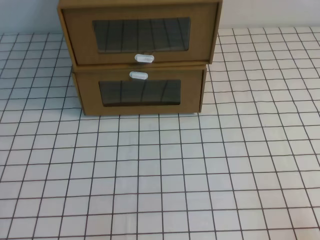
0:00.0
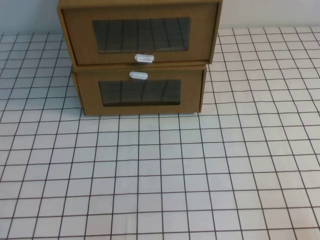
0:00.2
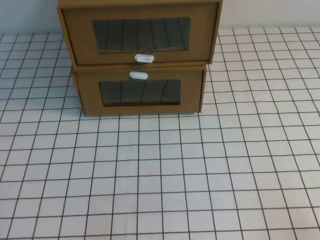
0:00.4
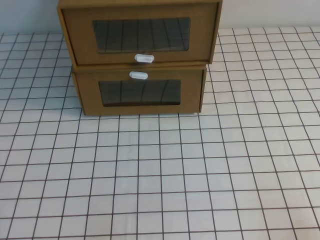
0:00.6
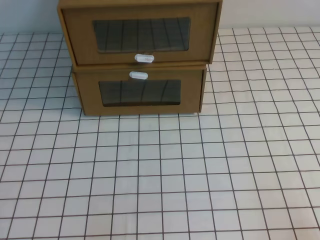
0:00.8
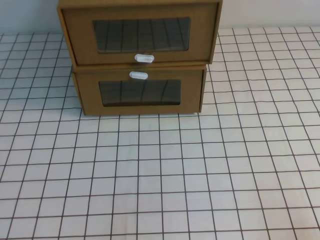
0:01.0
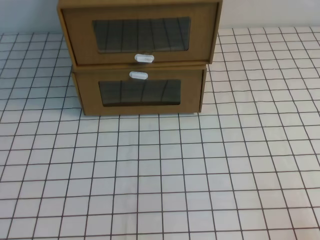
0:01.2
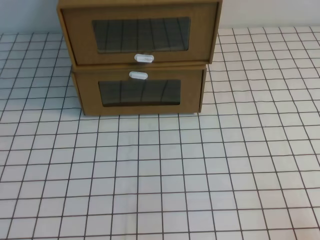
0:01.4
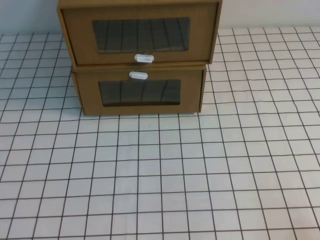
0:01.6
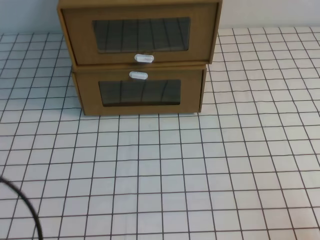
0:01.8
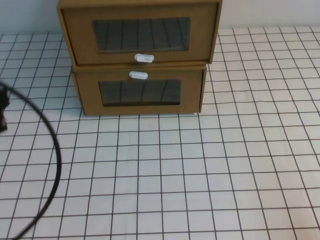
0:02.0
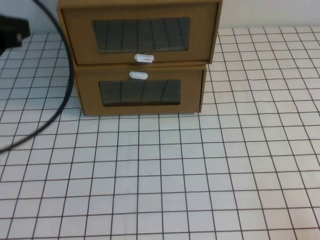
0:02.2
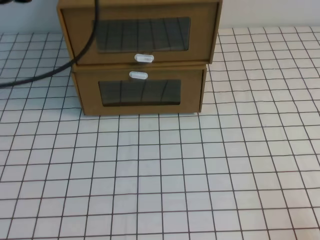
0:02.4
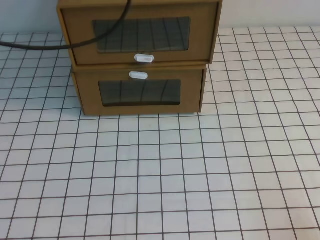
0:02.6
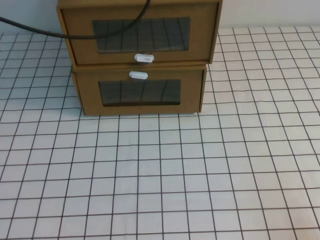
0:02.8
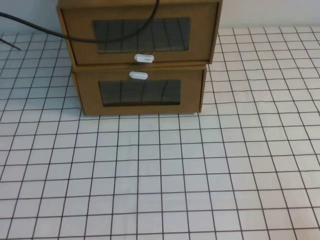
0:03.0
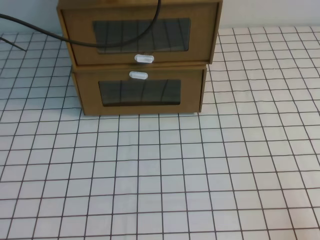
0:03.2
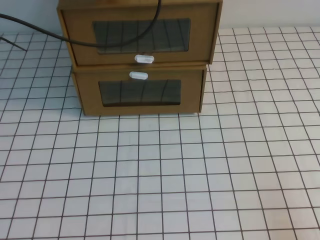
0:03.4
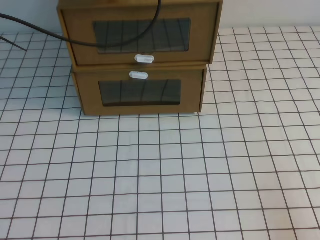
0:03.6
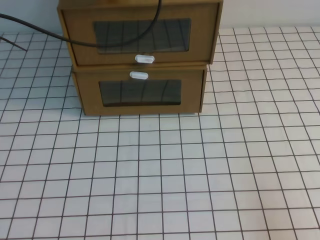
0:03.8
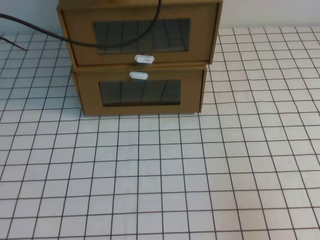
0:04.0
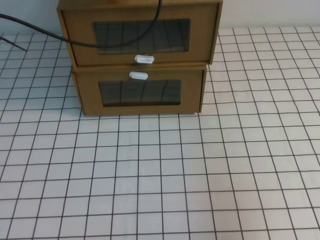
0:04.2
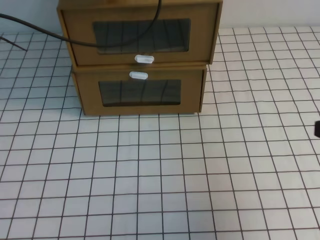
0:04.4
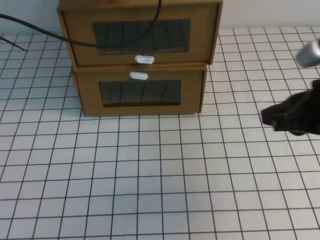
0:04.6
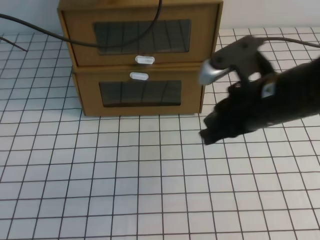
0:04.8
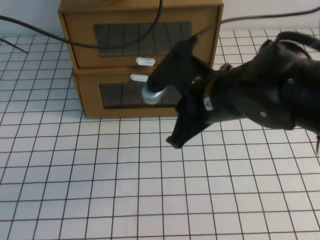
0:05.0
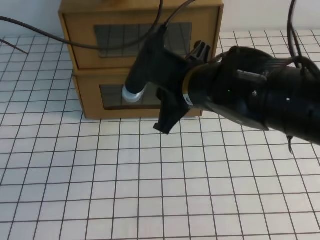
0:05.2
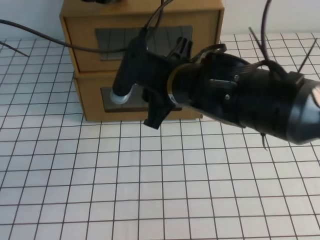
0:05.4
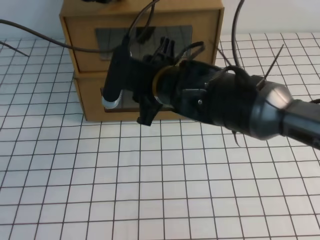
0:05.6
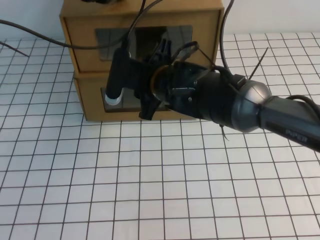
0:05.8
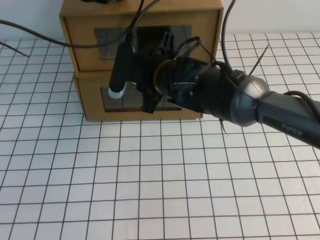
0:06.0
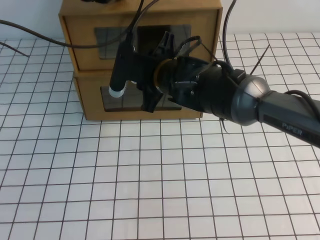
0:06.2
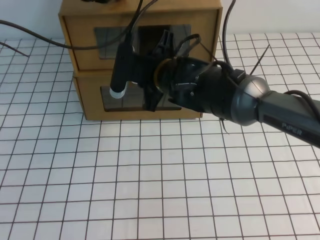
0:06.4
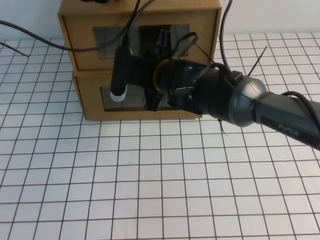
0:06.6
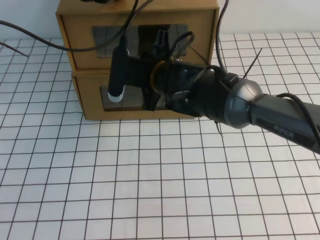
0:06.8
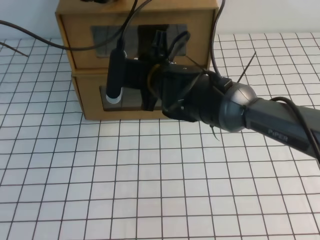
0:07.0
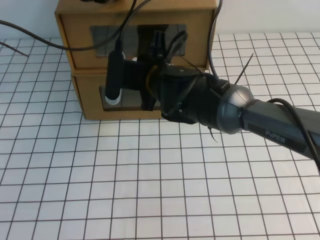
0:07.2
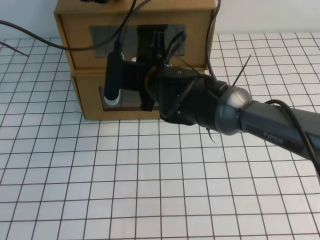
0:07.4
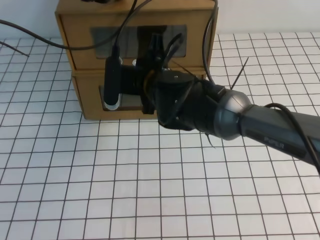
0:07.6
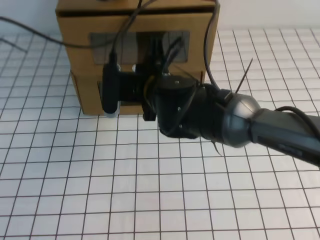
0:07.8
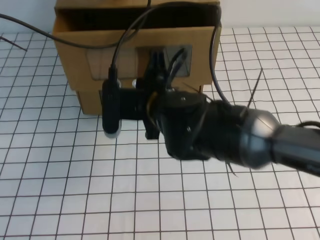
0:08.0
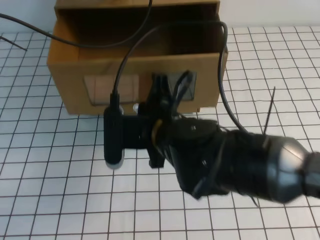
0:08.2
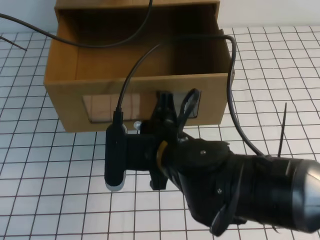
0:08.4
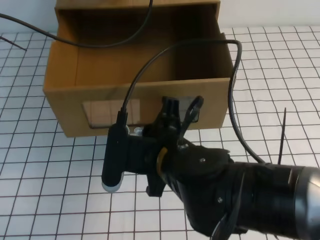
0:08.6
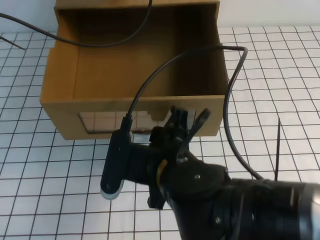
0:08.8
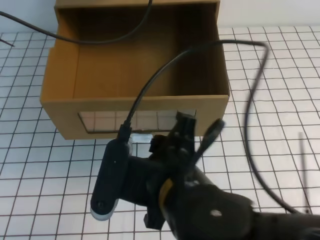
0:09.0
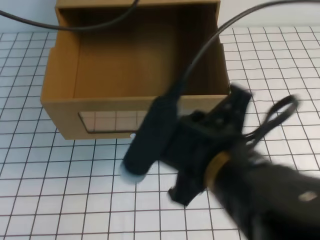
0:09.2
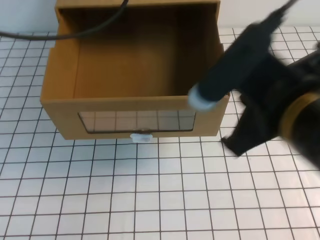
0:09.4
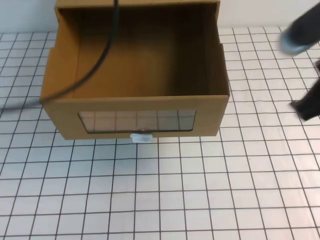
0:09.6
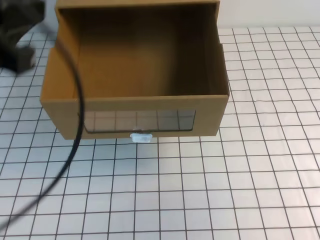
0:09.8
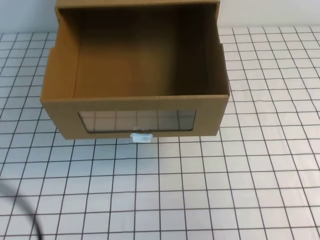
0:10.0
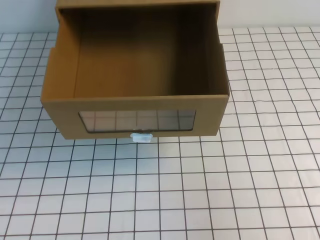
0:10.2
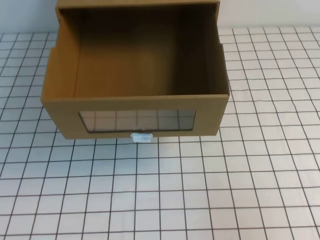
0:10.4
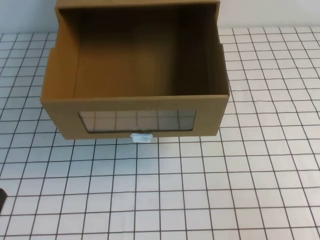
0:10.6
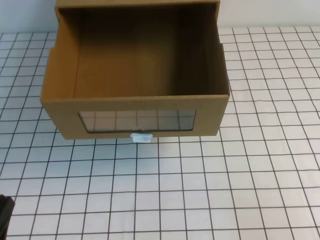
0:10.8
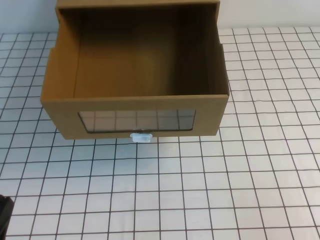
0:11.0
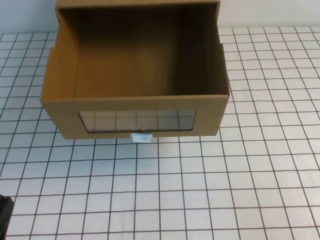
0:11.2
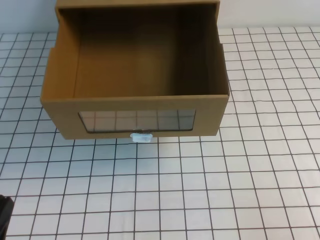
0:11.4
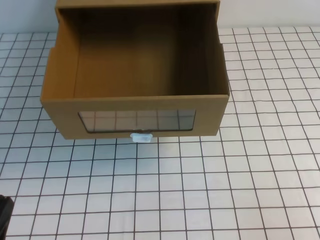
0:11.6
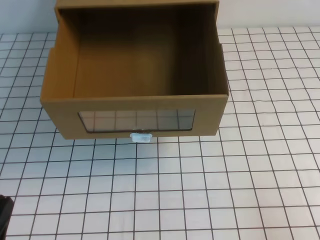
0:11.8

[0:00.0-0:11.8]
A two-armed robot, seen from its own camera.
Task of the whole recording: open the shoebox on the white tablecloth.
0:01.4 to 0:03.0: The left gripper moves forward and upward, roughly 40 cm.
0:03.0 to 0:04.4: The right gripper is displaced upward and forward by about 20 cm.
0:04.4 to 0:06.0: The right gripper is displaced to the left and forward by roughly 35 cm, and opens up.
0:06.0 to 0:07.4: The right gripper closes.
0:07.4 to 0:08.8: The right gripper is displaced backward by roughly 20 cm, and opens its fingers.
0:08.8 to 0:10.4: The right gripper is displaced to the right by approximately 30 cm, and closes its fingers, while the left gripper is displaced backward by roughly 40 cm.
0:10.4 to 0:11.8: The two grippers go about 10 cm downward.

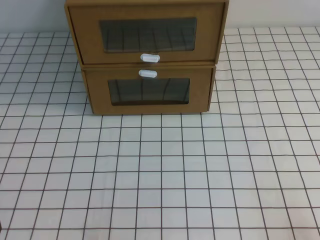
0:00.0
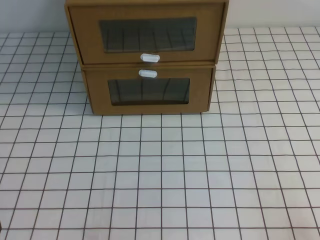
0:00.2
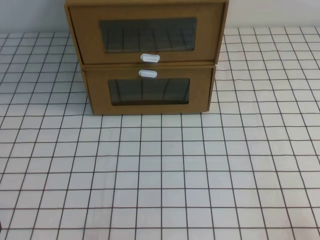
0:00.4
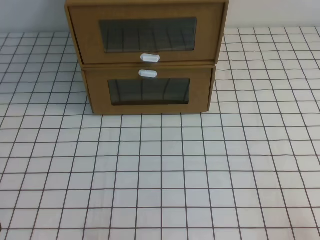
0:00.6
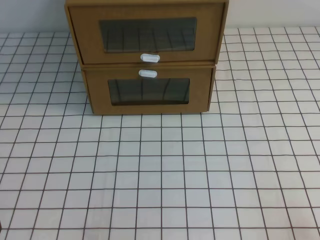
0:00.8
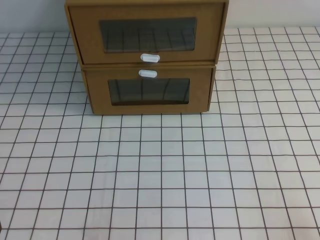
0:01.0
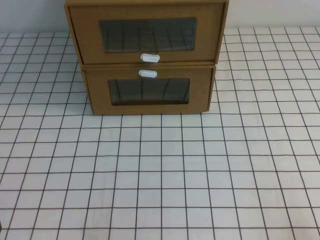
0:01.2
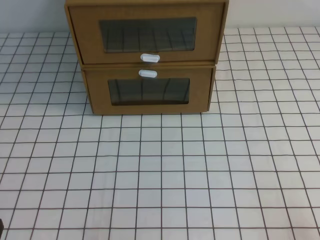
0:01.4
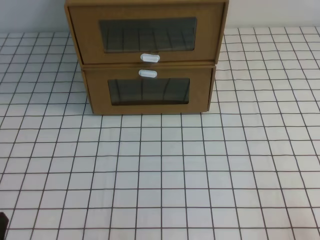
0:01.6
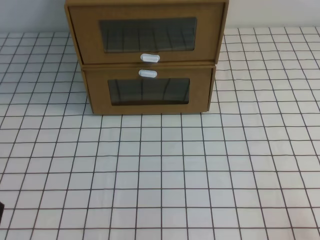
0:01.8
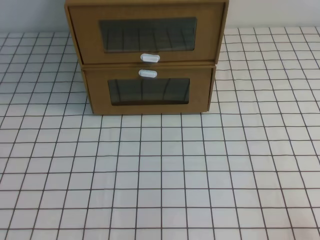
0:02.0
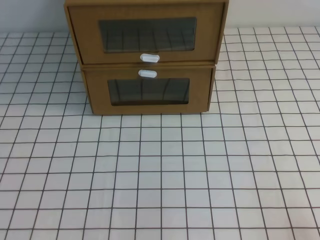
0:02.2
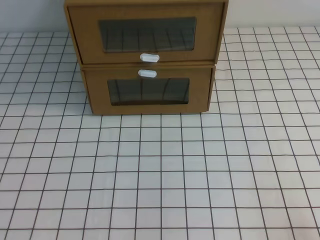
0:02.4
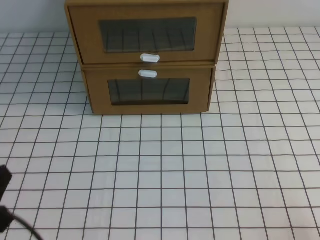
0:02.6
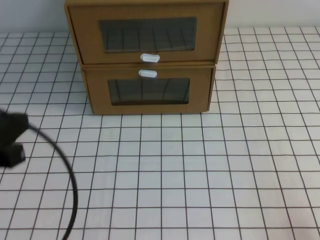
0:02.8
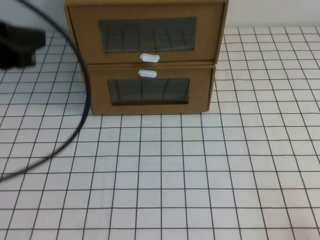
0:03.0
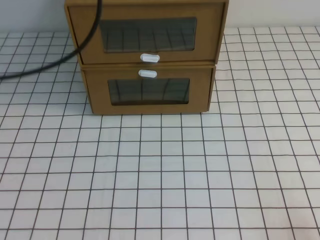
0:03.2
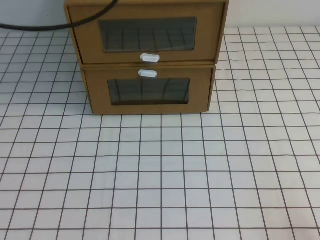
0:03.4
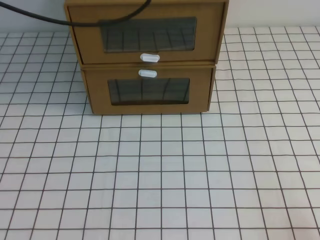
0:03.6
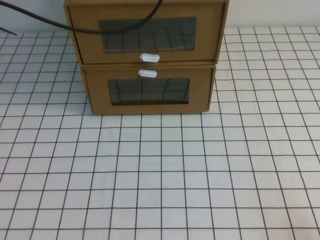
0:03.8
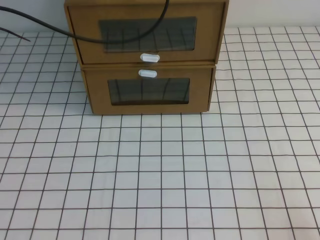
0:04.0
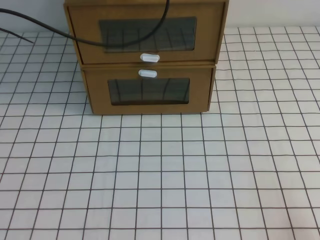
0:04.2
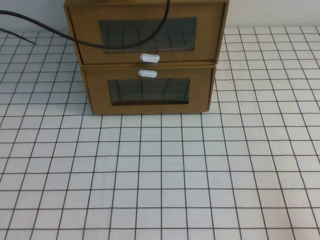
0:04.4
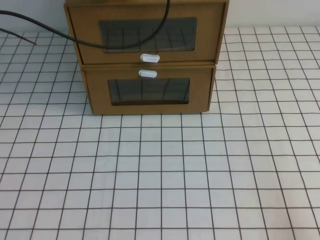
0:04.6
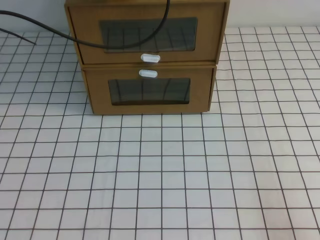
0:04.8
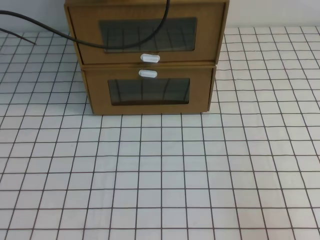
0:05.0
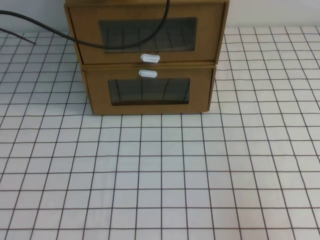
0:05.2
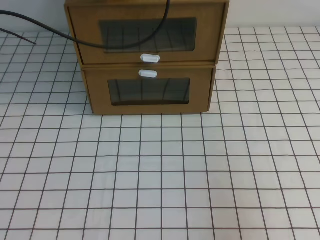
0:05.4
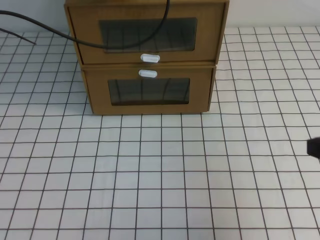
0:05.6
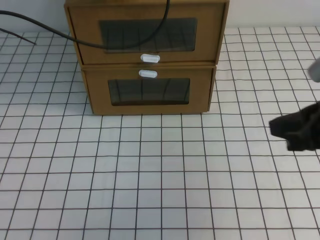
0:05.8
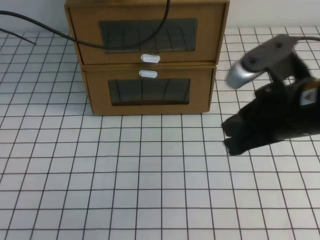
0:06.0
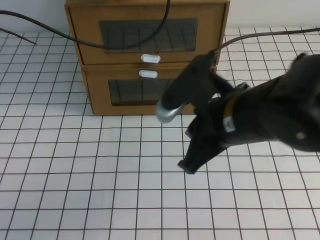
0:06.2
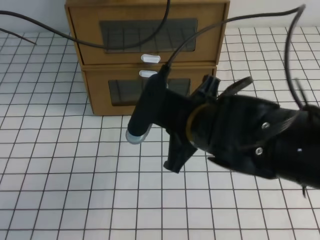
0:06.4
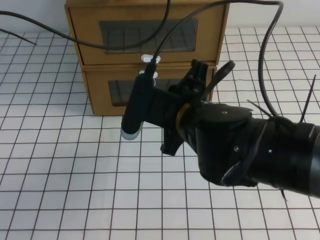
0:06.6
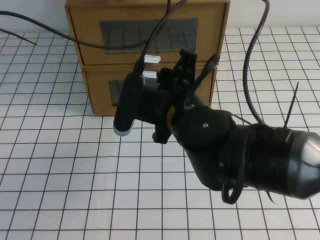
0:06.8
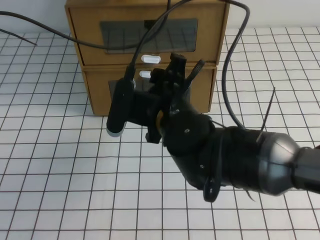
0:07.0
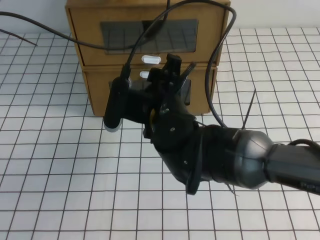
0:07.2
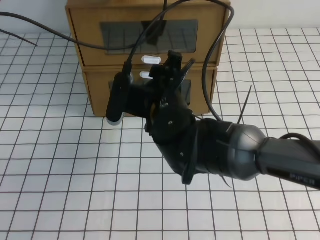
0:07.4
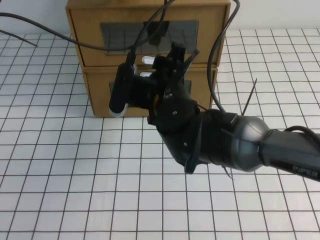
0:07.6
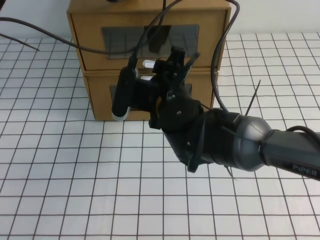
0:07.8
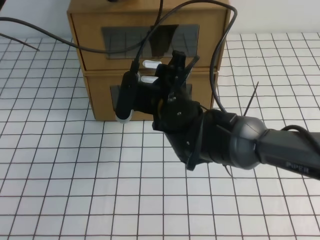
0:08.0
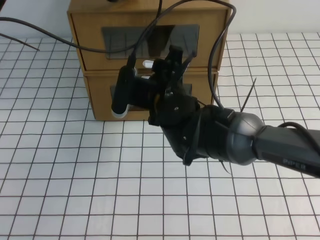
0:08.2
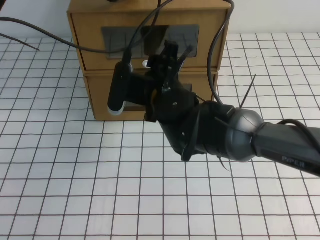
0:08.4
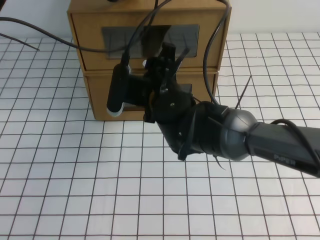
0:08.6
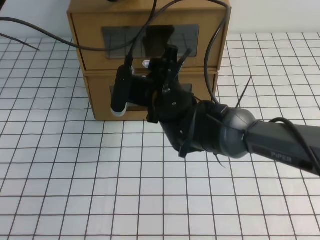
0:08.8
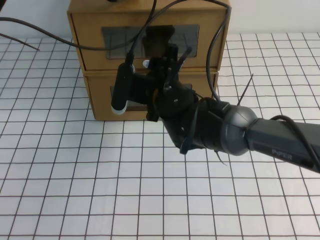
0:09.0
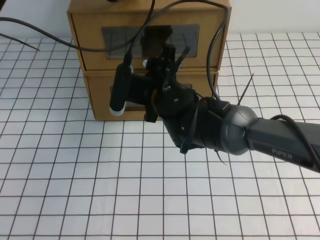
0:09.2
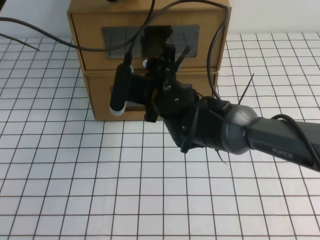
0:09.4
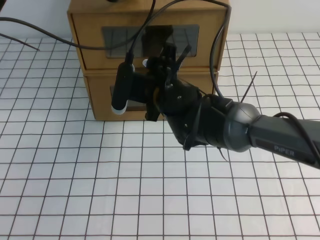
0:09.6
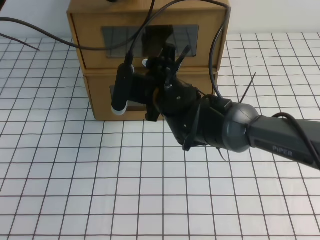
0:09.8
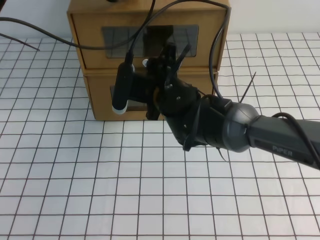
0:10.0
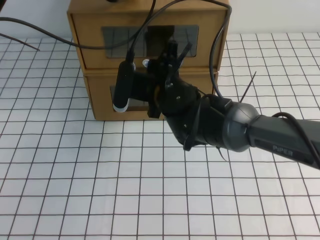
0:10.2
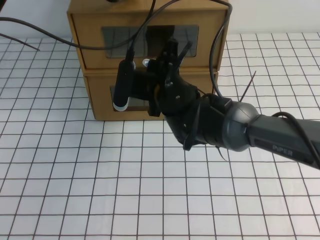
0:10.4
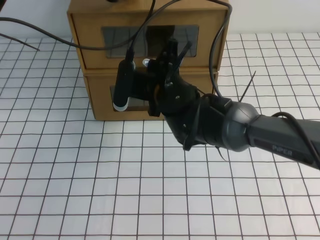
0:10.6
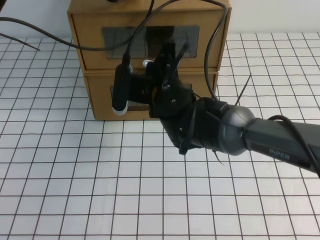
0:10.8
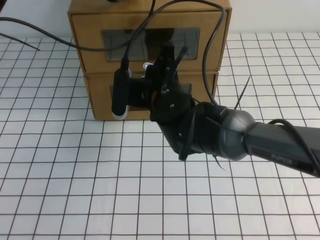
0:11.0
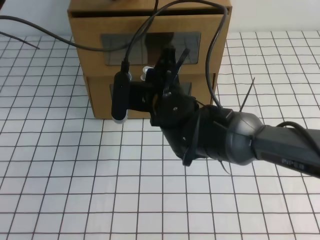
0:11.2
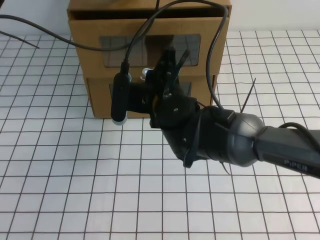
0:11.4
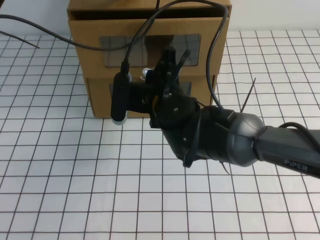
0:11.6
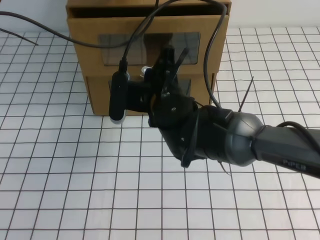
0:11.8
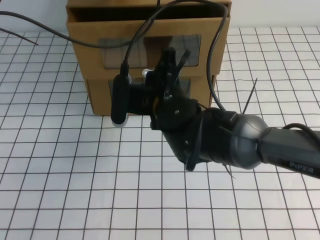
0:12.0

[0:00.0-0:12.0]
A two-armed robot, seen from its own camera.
Task of the whole recording: open the shoebox on the white tablecloth.
0:01.6 to 0:03.0: The left gripper heads upward and forward, covering approximately 25 cm.
0:03.0 to 0:04.4: The left gripper moves forward, roughly 25 cm.
0:04.4 to 0:06.0: The right gripper is displaced forward, to the left and upward by approximately 25 cm.
0:06.0 to 0:07.6: The right gripper moves to the left and forward, approximately 20 cm, and opens its fingers.
0:09.0 to 0:10.4: The right gripper closes.
